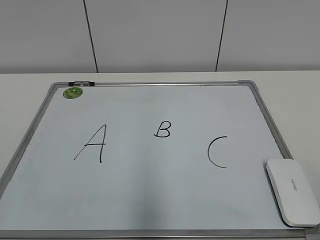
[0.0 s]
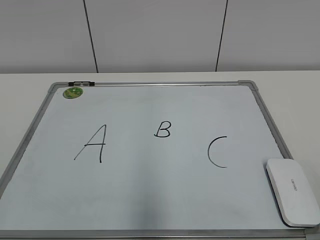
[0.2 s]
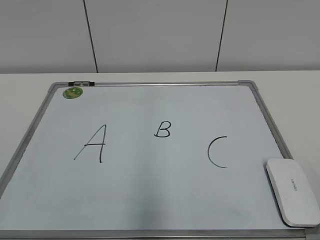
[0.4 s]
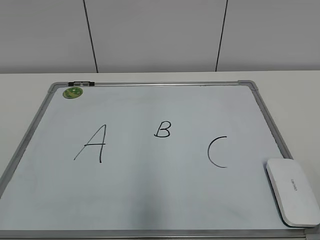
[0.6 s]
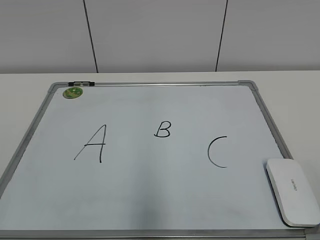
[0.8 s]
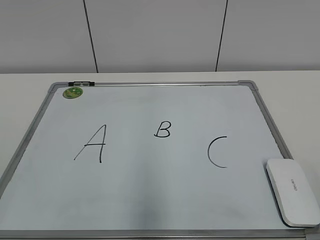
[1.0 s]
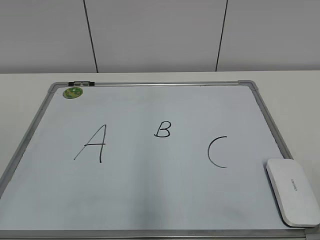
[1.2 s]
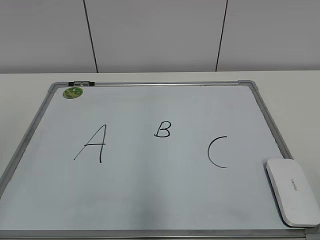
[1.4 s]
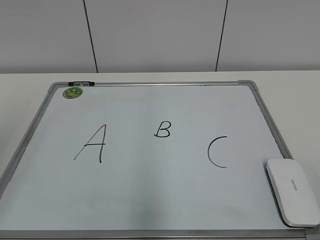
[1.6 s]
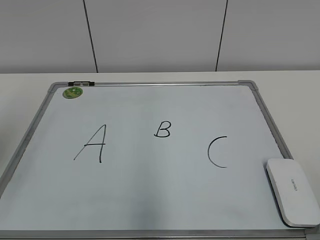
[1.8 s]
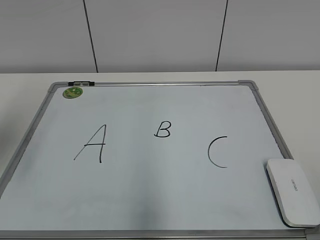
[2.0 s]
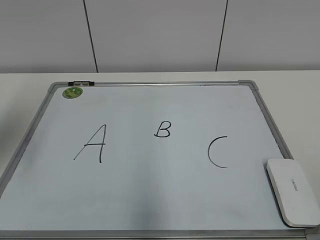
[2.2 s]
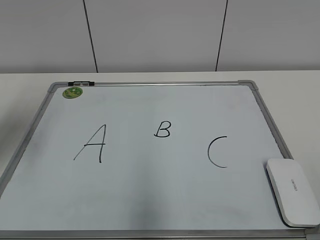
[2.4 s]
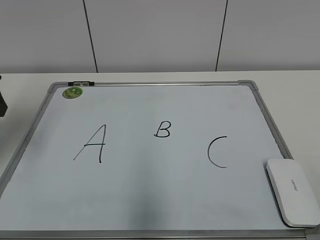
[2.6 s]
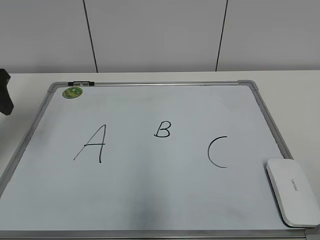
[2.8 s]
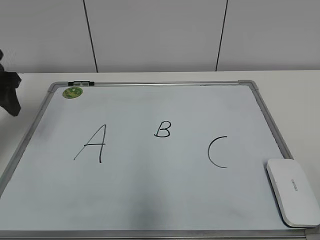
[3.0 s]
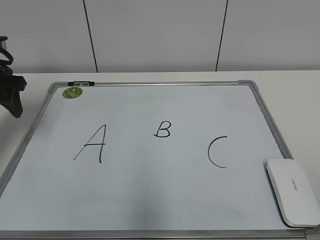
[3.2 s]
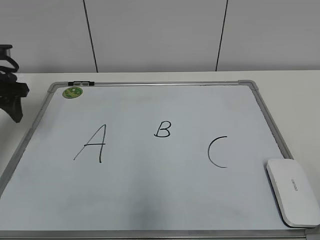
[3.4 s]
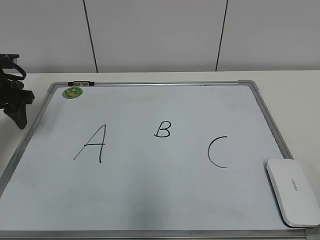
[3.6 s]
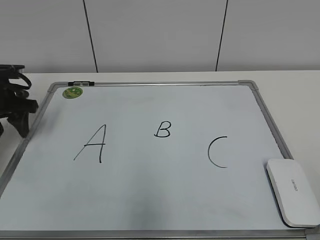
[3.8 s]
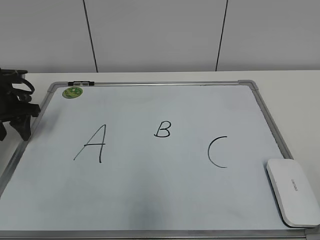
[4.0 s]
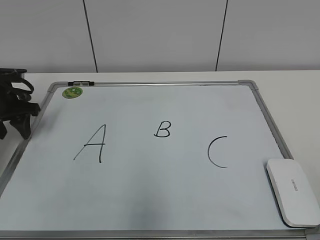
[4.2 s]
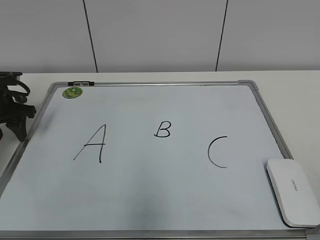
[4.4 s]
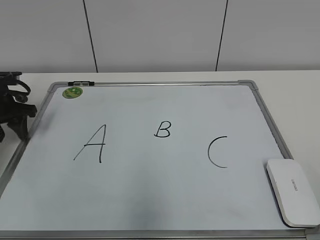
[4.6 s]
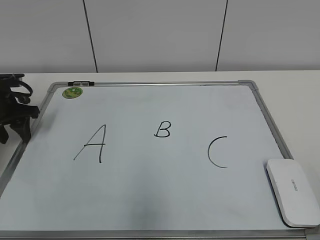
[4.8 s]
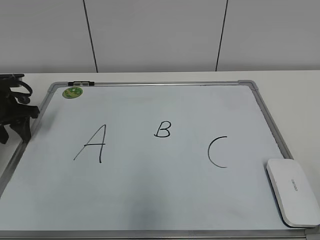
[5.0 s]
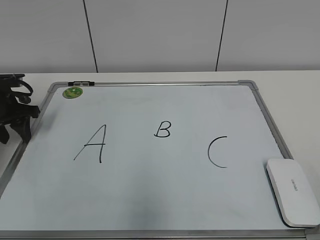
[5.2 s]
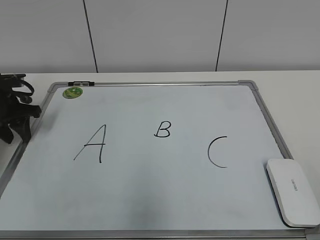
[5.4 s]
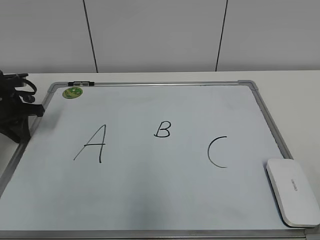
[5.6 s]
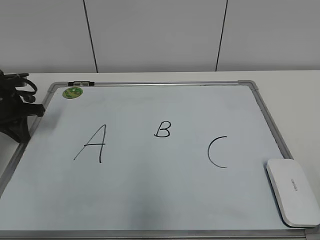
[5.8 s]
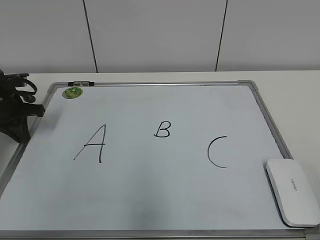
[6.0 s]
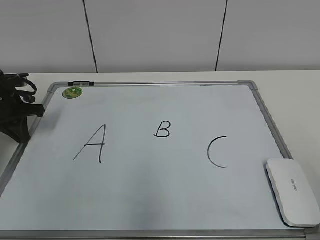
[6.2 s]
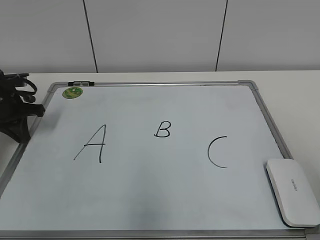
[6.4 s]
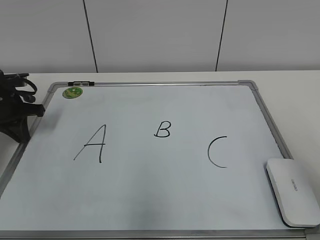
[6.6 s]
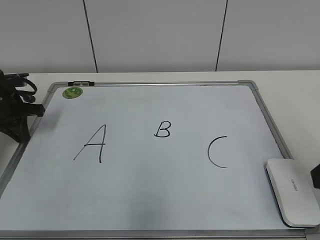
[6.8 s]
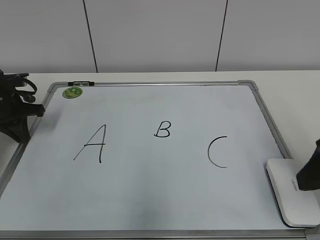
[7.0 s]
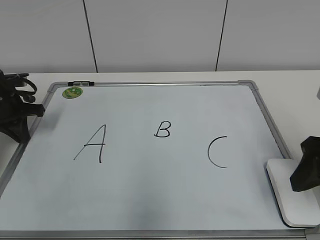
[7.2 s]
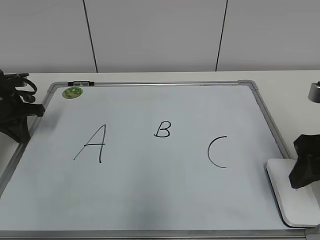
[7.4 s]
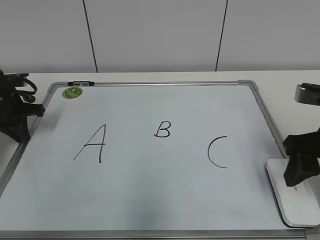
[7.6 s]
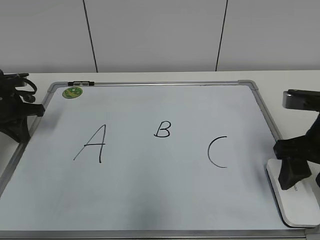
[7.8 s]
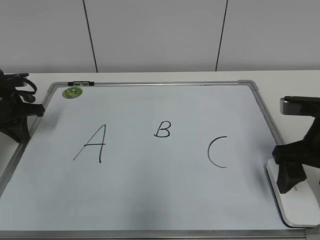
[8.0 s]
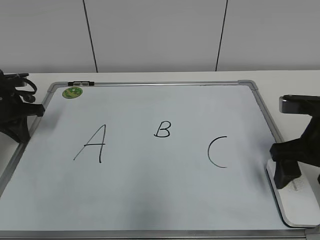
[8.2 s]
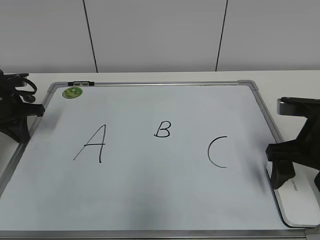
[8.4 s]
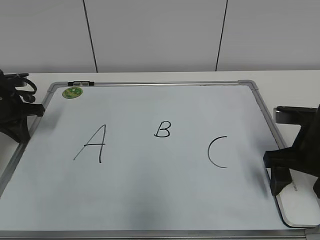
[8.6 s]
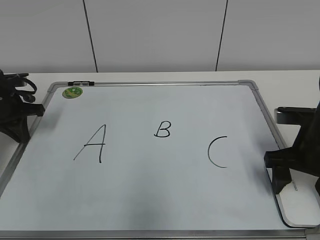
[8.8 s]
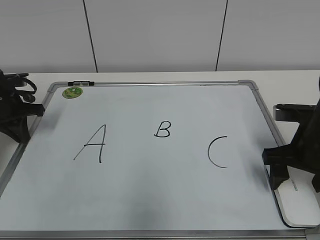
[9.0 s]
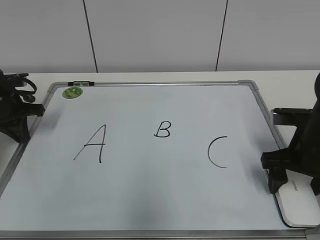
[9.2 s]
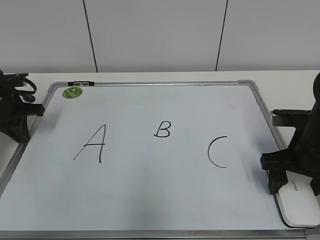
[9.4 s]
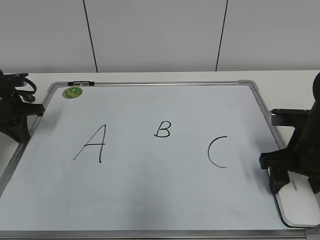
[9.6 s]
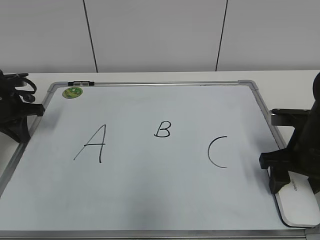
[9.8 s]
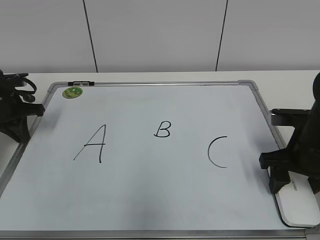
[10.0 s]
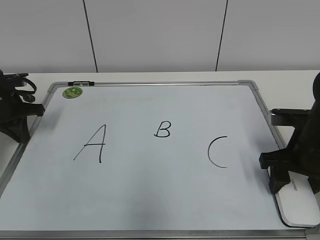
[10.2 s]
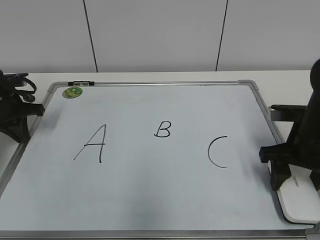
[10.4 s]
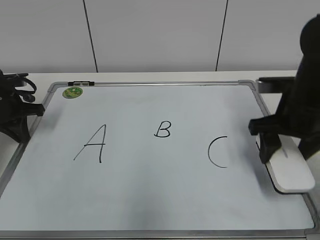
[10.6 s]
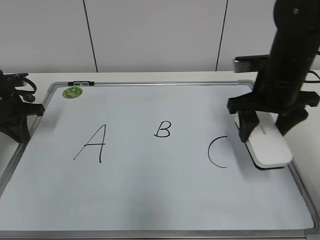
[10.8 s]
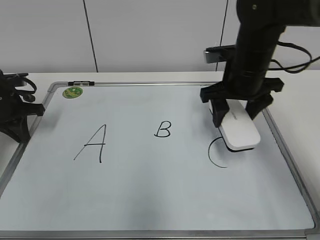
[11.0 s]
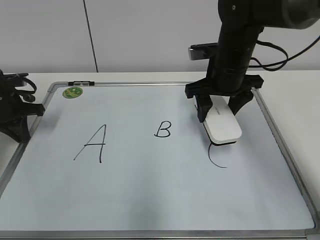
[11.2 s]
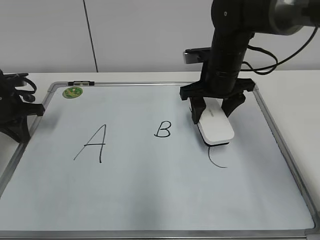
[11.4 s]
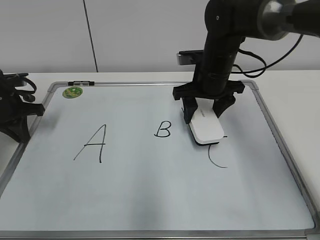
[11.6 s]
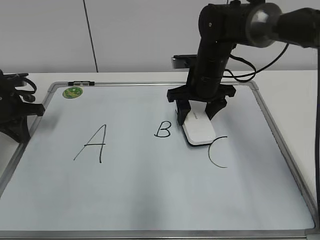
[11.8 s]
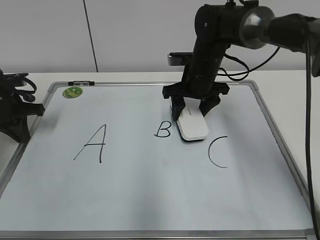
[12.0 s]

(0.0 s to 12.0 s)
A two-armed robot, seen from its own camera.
Task of the whole recording: pick up the eraser on the blackboard and erase the letter "B".
Step, 0.0 s - 5.6 s: Hold the drawing board steady with your left hand.
Step, 5.8 s - 10.0 s: Grab the eraser with your right hand.
1.6 s - 3.0 s: The left gripper is displaced forward and downward by approximately 25 cm.
3.0 s - 4.4 s: The left gripper is displaced downward and forward by approximately 10 cm.
4.4 s - 6.0 s: The left gripper closes its fingers.
6.0 s - 7.6 s: The right gripper is displaced forward by roughly 25 cm.
7.6 s - 9.0 s: The right gripper heads downward, covering roughly 5 cm, and opens its fingers.
9.0 s - 10.4 s: The right gripper closes its fingers.
10.4 s - 12.0 s: The right gripper moves forward and to the left, about 20 cm.

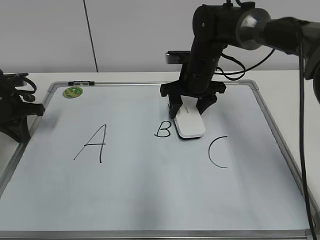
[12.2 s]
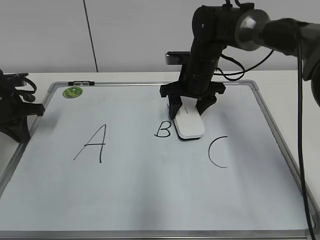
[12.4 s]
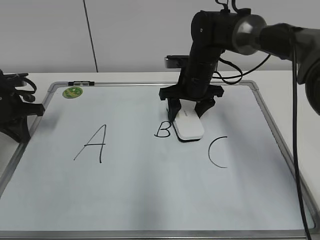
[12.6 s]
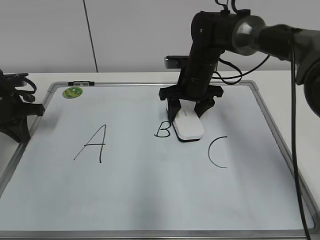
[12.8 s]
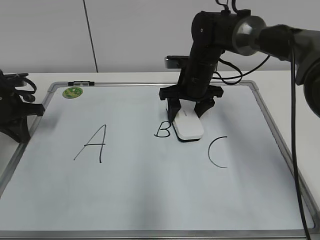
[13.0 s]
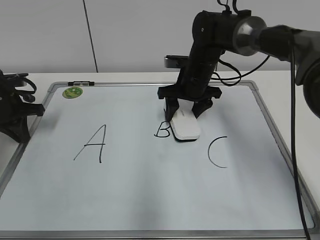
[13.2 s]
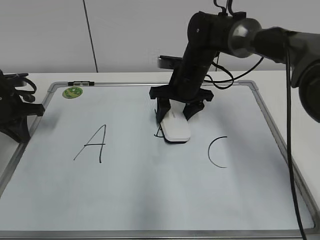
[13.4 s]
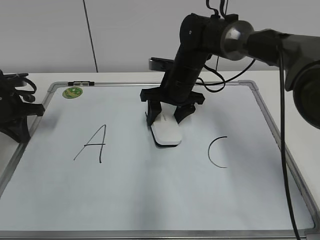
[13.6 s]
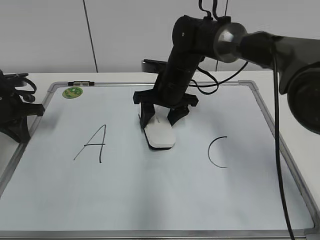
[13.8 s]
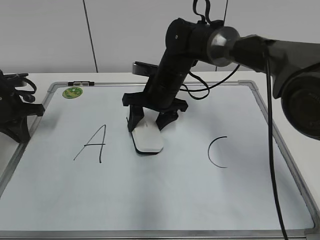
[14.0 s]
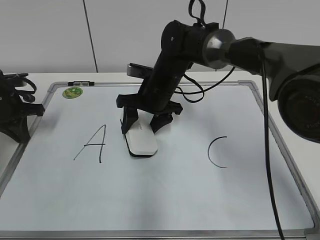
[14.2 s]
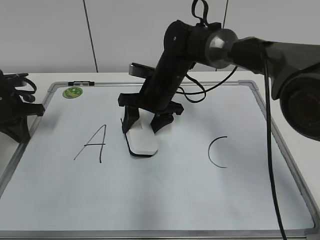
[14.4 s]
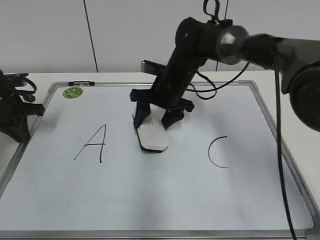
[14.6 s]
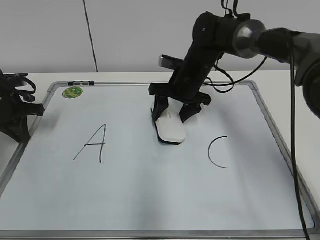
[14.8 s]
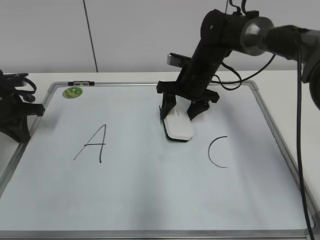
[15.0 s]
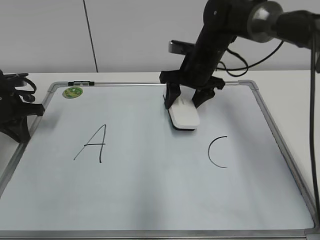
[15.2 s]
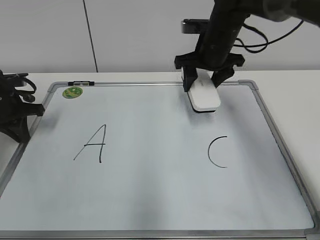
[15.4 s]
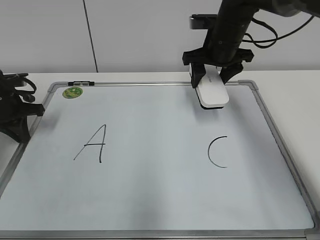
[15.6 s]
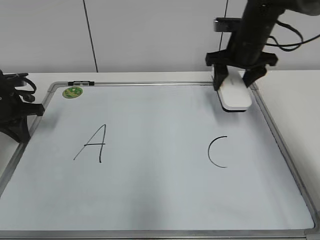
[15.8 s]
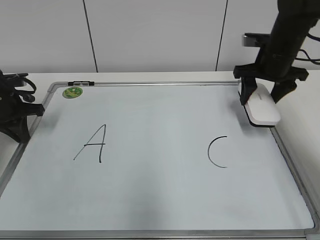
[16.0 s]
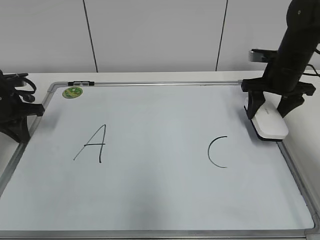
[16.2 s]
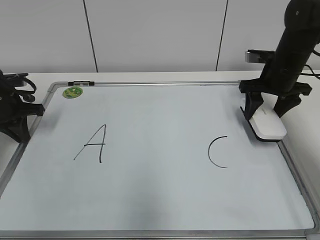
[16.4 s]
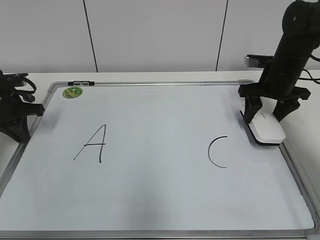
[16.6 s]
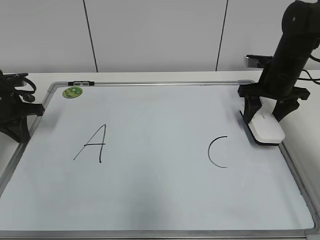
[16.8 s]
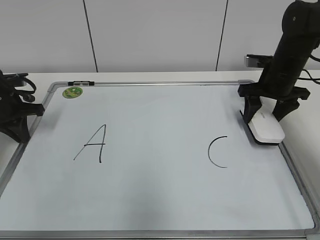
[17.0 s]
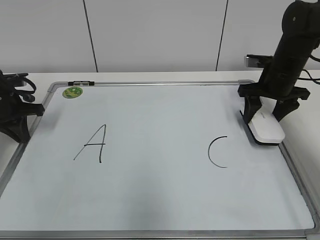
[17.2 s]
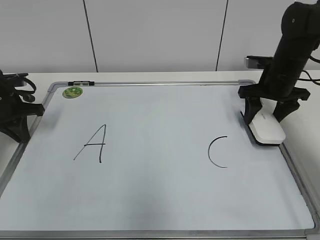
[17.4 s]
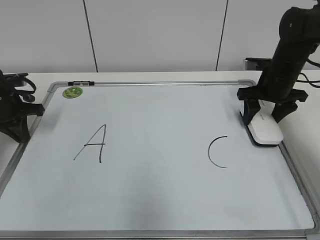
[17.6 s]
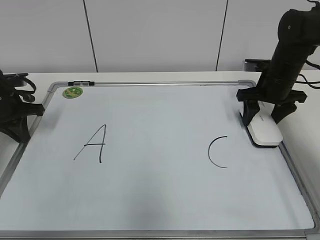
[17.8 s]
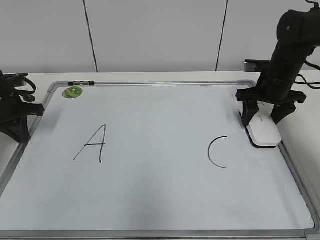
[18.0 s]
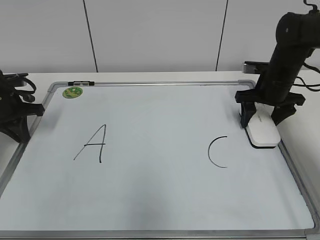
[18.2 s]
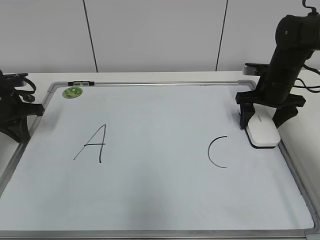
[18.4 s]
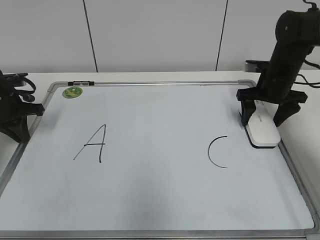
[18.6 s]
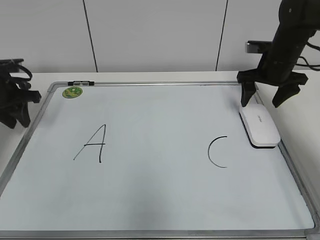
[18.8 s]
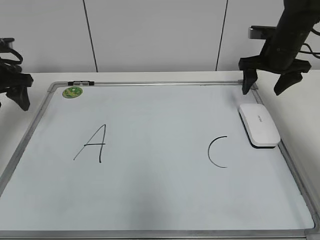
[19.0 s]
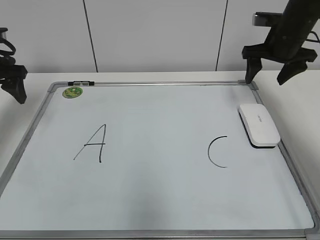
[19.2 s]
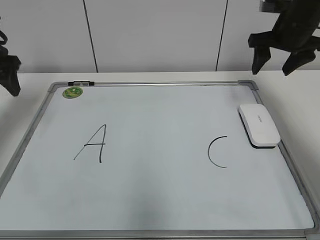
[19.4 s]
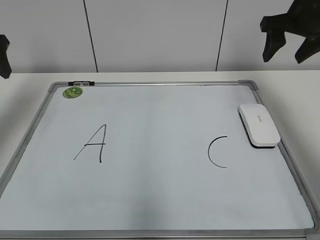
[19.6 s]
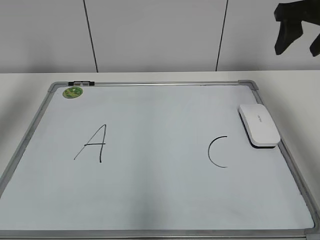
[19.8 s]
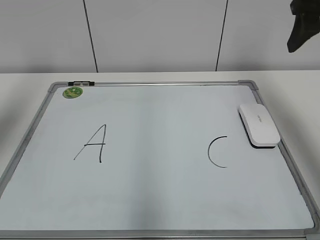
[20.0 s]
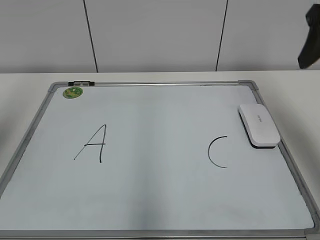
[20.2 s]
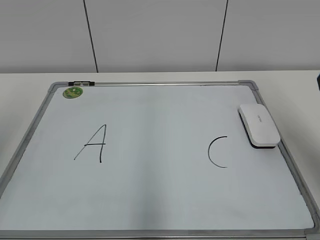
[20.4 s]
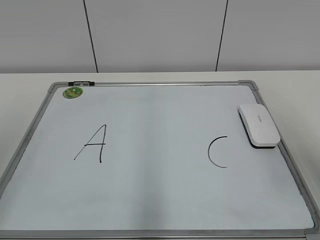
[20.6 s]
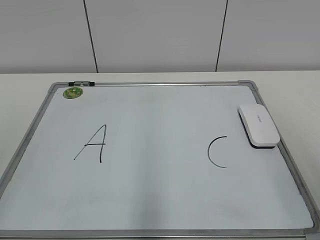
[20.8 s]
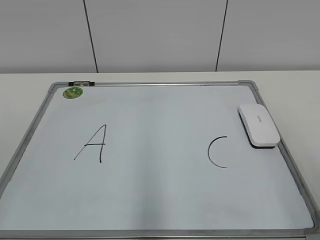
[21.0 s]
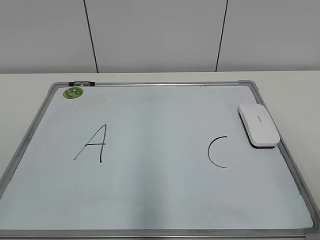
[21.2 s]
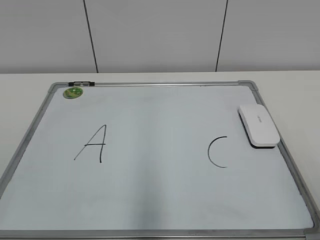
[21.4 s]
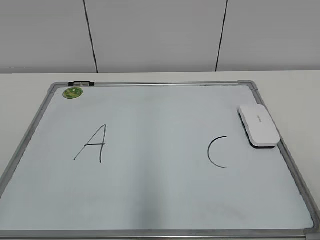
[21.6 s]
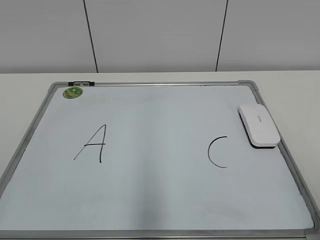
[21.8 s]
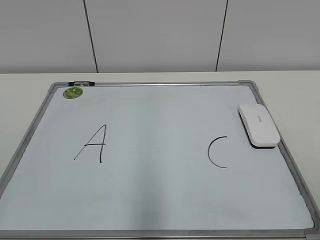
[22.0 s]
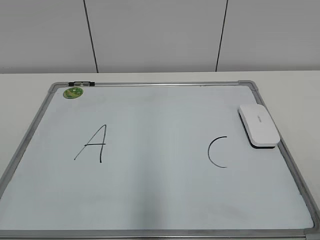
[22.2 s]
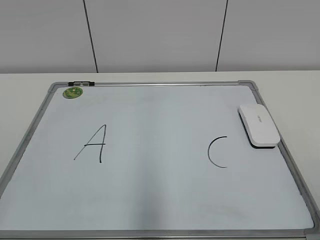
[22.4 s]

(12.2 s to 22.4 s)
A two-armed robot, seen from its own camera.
Task of the whole recording: pick up the eraser on the blackboard and erase the letter "B".
Step, 12.2 s - 14.8 s: Erase the letter B with your right hand.
Step, 15.2 s - 18.0 s: Put down the eraser with your right hand.
12.2 s - 13.6 s: There are only small adjustments of the grippers.
13.6 s - 15.2 s: The grippers move only a little.
15.2 s - 16.6 s: The right gripper heads to the right, covering roughly 15 cm.
16.6 s - 18.0 s: There are only small adjustments of the grippers.
18.0 s - 19.4 s: The two grippers go some 10 cm upward. The right gripper opens its fingers. The left gripper opens.
19.4 s - 21.0 s: The grippers both shift backward by approximately 35 cm.
